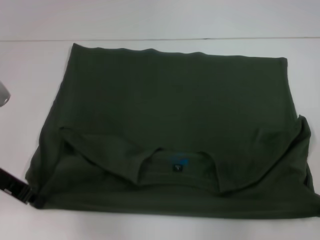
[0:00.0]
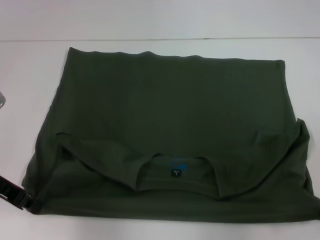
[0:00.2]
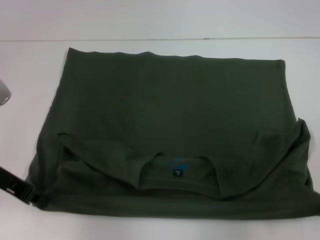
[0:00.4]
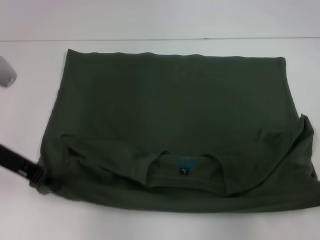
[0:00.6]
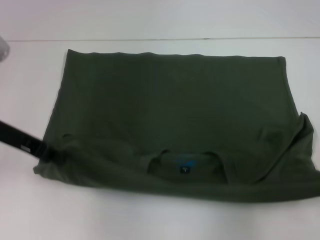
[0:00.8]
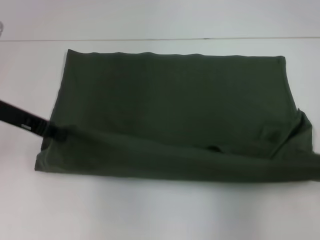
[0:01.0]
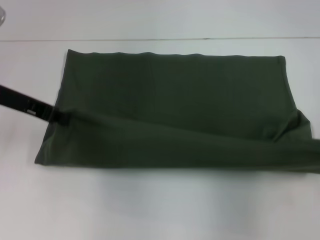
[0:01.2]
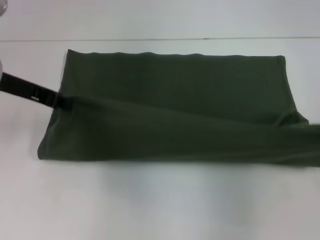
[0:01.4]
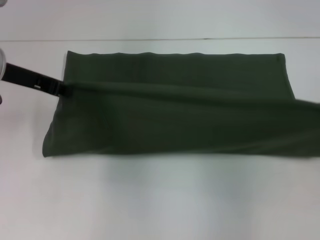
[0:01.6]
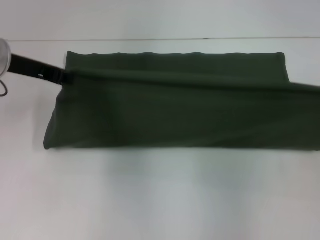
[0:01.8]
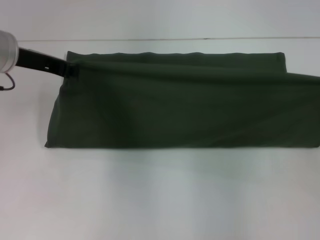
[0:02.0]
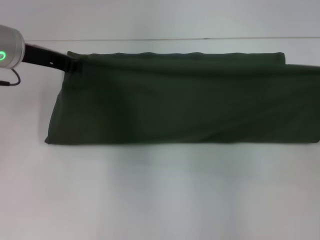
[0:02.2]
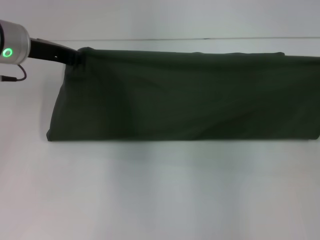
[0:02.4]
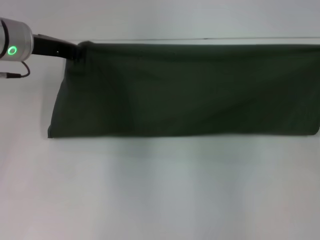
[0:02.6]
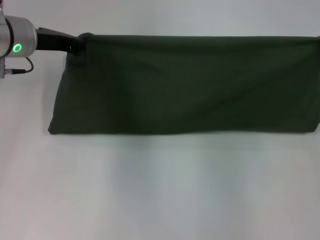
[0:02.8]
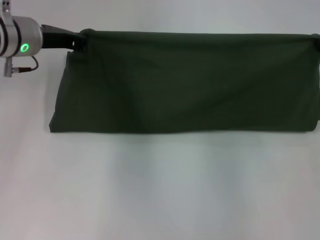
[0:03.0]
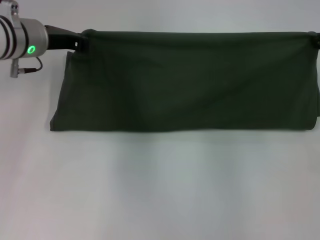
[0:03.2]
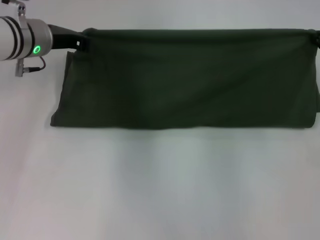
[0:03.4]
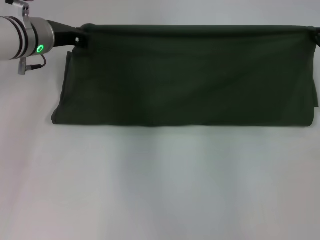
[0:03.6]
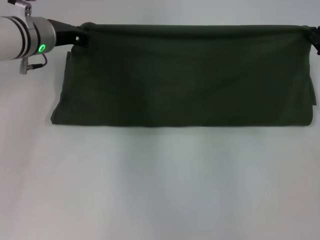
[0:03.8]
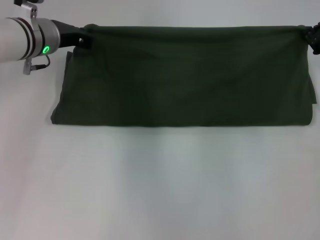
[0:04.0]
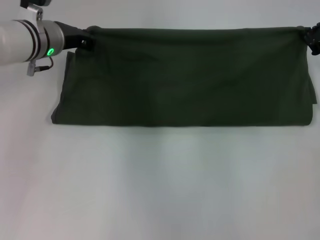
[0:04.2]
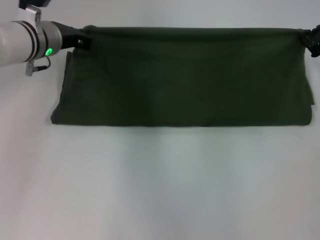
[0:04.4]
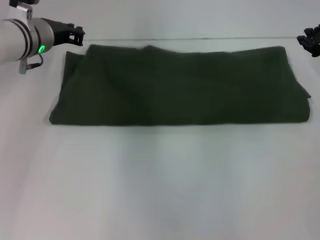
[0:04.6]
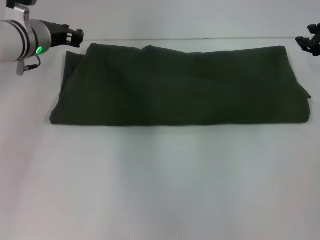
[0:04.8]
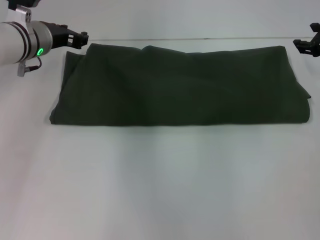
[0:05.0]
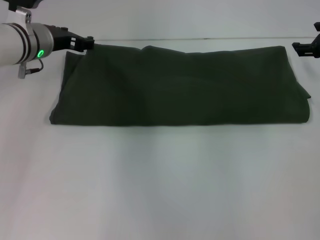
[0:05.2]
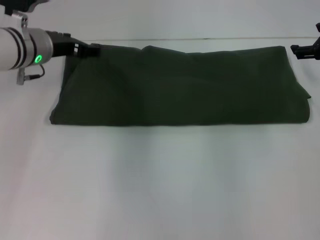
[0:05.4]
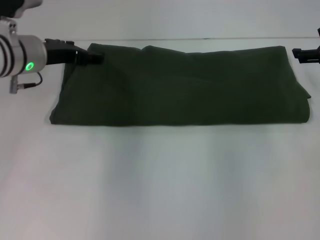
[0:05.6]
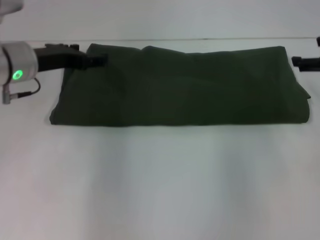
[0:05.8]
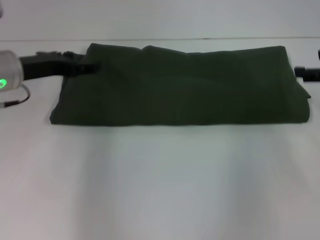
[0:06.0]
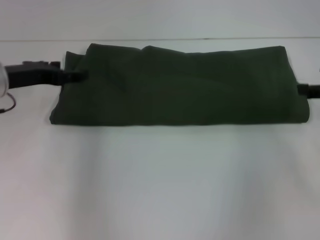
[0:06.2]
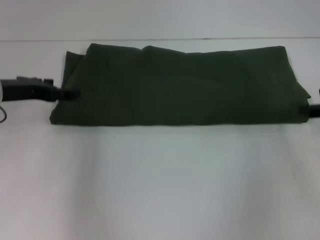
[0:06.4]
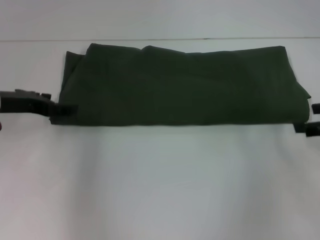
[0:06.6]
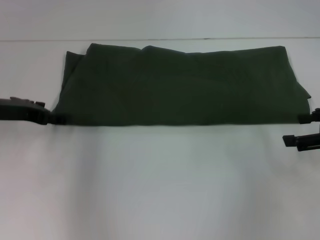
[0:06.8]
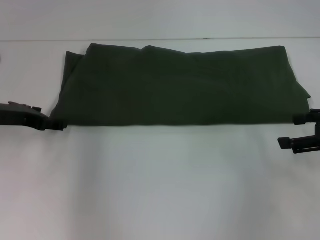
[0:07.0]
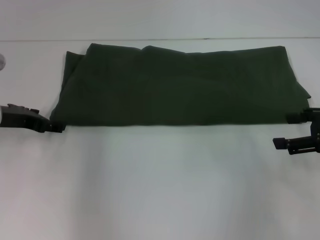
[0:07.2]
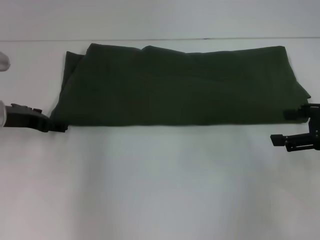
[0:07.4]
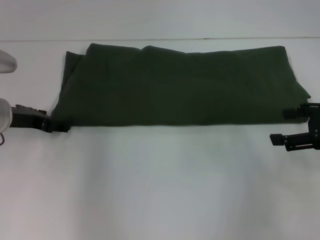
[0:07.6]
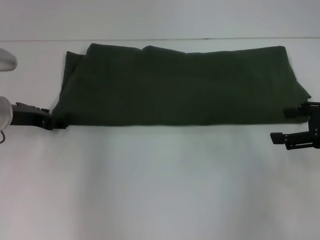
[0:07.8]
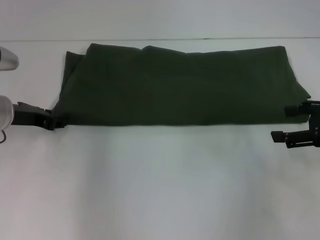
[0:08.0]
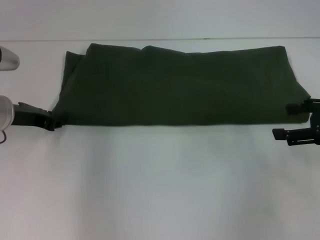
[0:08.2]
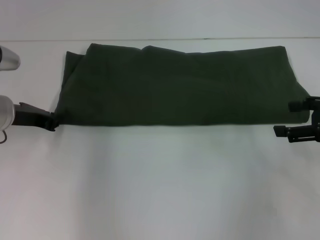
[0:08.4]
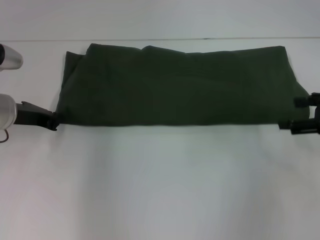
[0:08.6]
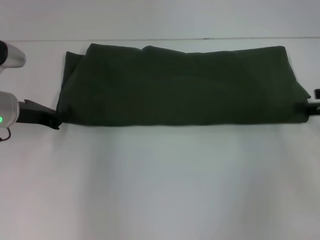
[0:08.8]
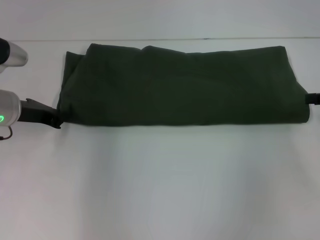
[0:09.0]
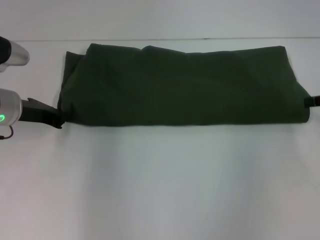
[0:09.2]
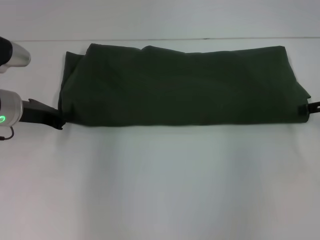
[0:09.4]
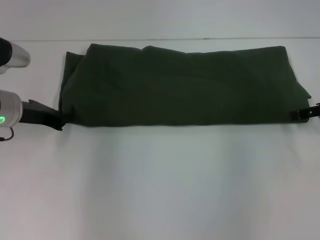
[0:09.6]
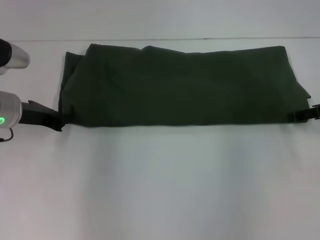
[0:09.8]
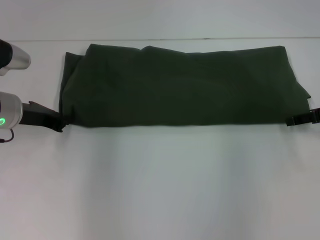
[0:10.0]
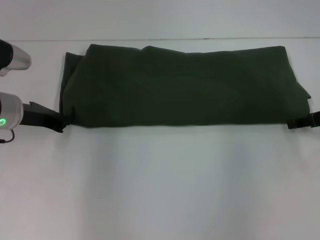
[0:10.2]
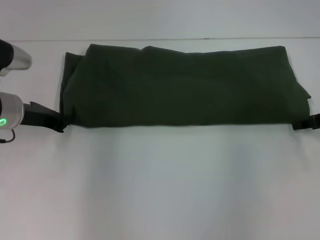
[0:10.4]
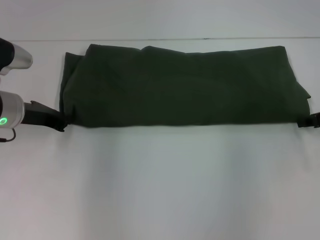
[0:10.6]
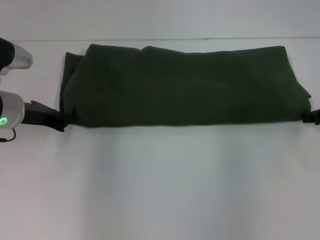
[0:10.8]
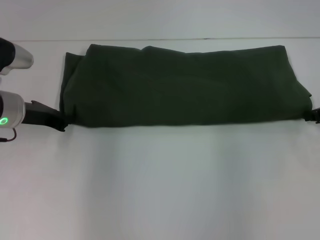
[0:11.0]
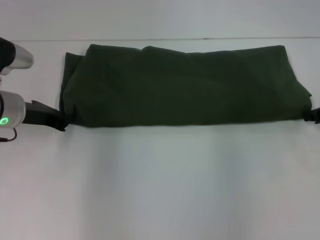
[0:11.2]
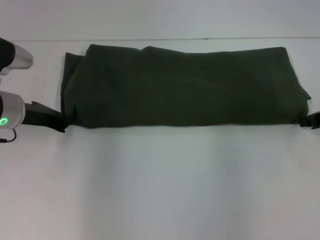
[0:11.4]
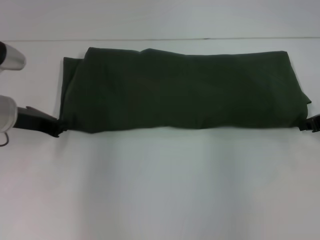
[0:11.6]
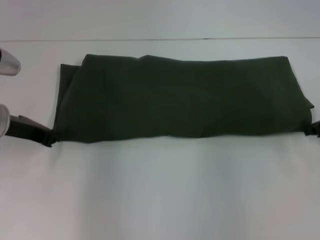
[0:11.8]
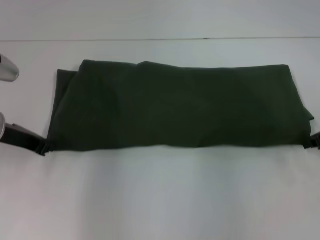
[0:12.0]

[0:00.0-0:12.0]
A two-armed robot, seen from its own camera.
Step, 0:00.6 to 0:05.0: Fold the clothes with your left hand.
Step, 0:00.6 to 0:05.0: Fold the clothes with your right hand.
0:00.0 to 0:01.6: The right gripper goes roughly 5 cm upward, while the left gripper moves forward and upward, approximately 10 cm.
0:01.6 to 0:03.0: The left gripper heads forward, covering approximately 5 cm; the right gripper heads forward, covering roughly 10 cm.
0:03.0 to 0:04.4: The right gripper shifts by about 5 cm.
0:04.4 to 0:06.0: The right gripper is displaced backward by roughly 10 cm, and opens its fingers, while the left gripper goes some 10 cm backward and to the left, and opens.
0:06.0 to 0:07.6: The right gripper travels backward by some 5 cm. The left gripper travels downward by about 5 cm.
0:07.6 to 0:09.0: The right gripper shifts by approximately 5 cm. The left gripper closes.
0:09.0 to 0:10.4: The right gripper shifts by roughly 5 cm, and closes.
0:10.4 to 0:12.0: The right gripper closes up.

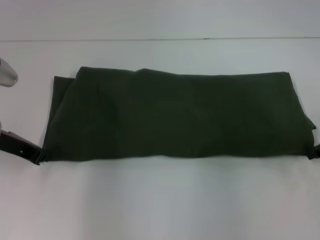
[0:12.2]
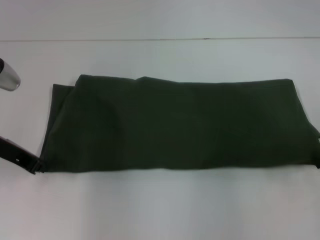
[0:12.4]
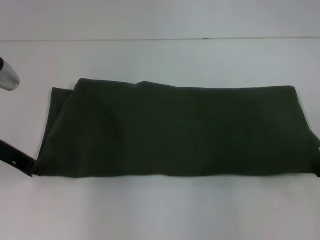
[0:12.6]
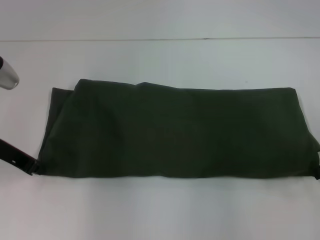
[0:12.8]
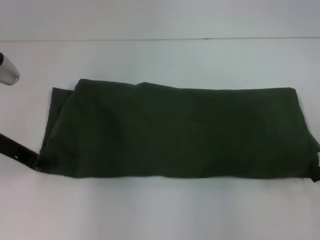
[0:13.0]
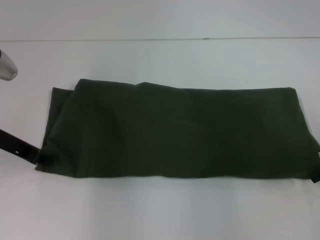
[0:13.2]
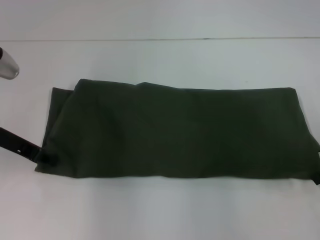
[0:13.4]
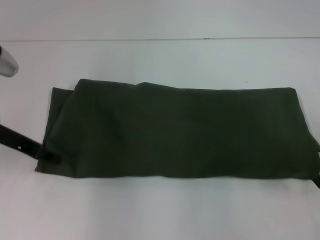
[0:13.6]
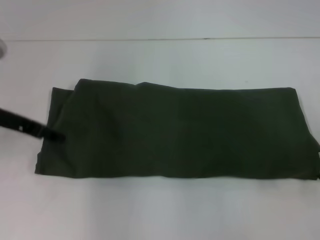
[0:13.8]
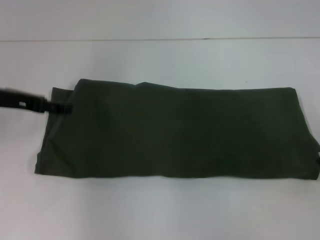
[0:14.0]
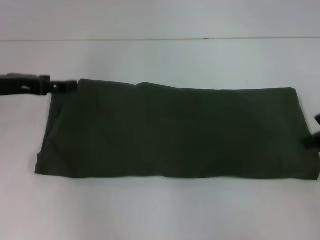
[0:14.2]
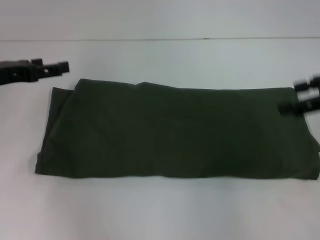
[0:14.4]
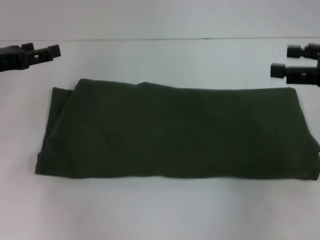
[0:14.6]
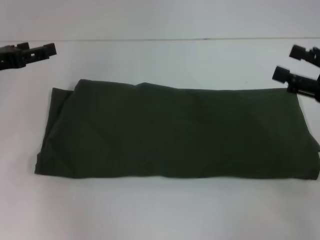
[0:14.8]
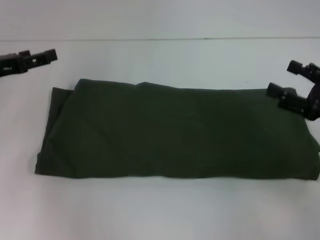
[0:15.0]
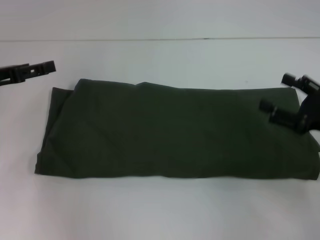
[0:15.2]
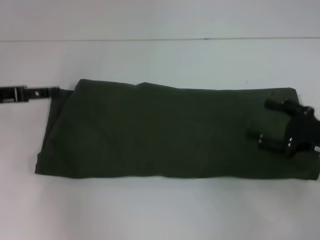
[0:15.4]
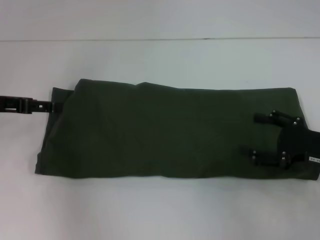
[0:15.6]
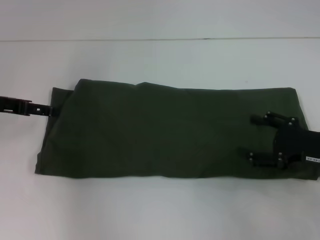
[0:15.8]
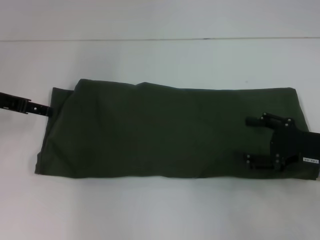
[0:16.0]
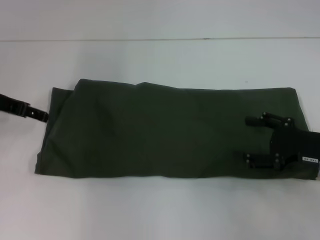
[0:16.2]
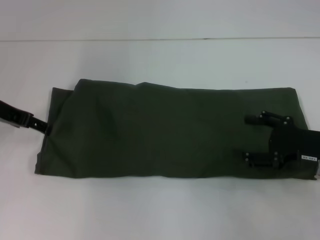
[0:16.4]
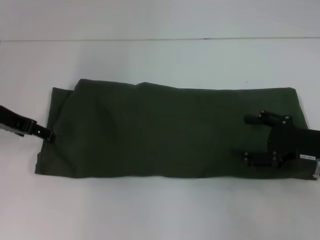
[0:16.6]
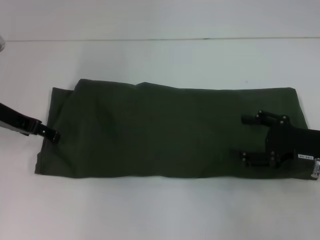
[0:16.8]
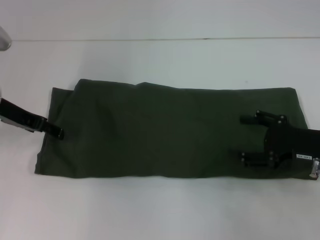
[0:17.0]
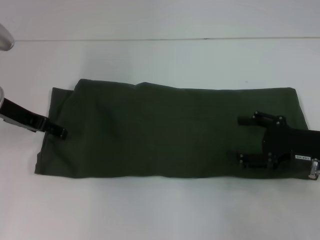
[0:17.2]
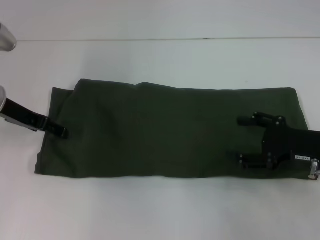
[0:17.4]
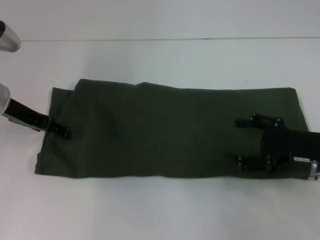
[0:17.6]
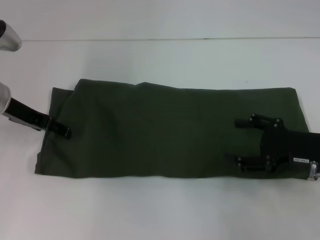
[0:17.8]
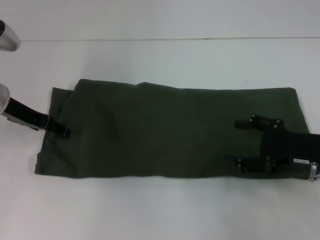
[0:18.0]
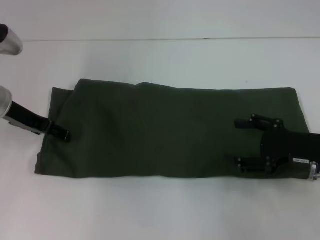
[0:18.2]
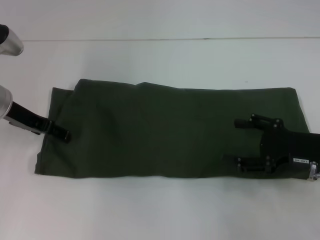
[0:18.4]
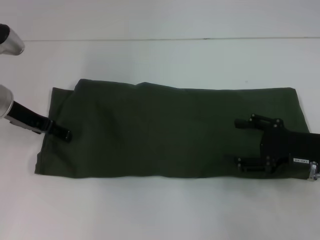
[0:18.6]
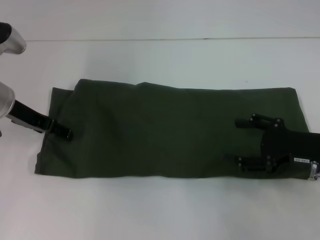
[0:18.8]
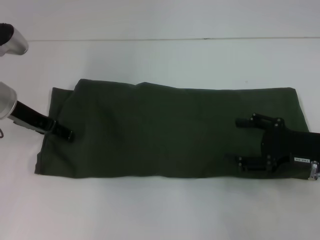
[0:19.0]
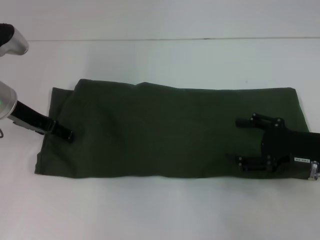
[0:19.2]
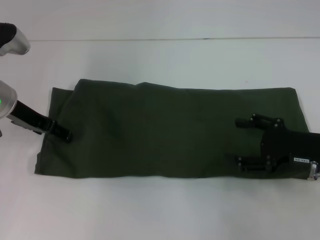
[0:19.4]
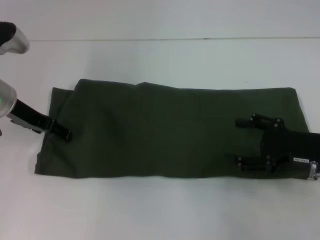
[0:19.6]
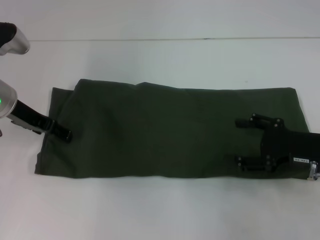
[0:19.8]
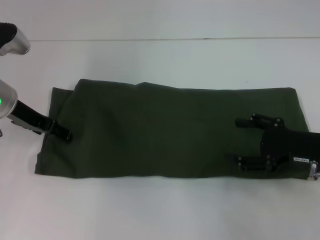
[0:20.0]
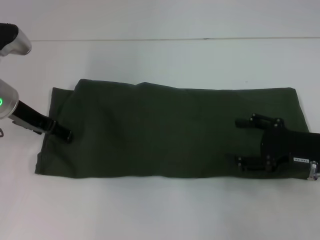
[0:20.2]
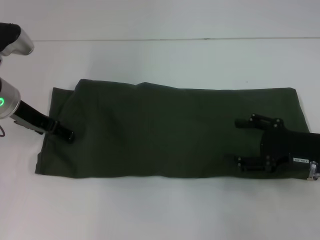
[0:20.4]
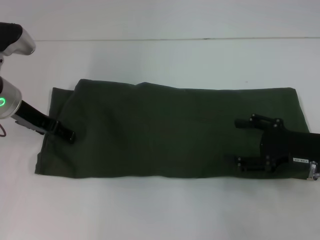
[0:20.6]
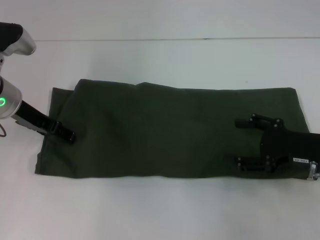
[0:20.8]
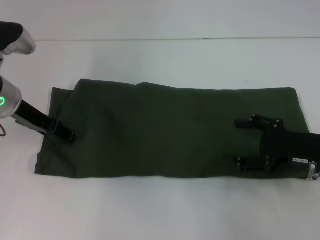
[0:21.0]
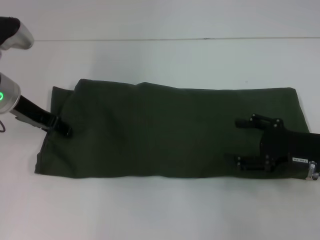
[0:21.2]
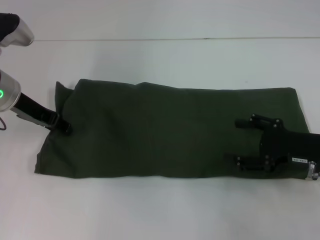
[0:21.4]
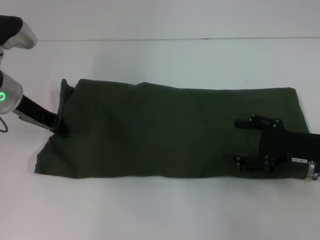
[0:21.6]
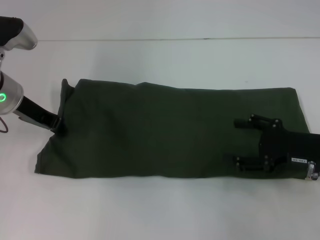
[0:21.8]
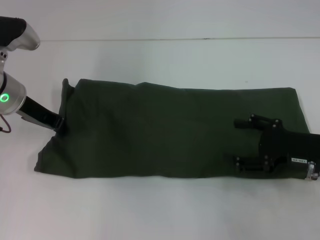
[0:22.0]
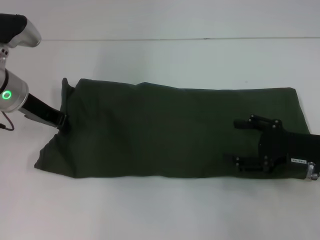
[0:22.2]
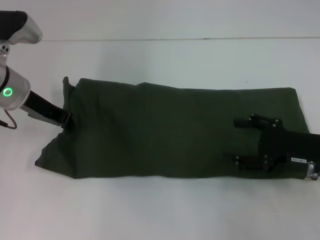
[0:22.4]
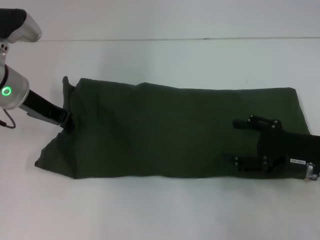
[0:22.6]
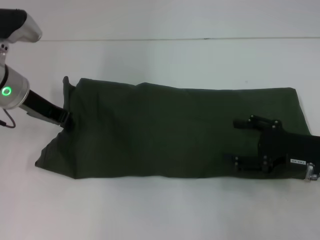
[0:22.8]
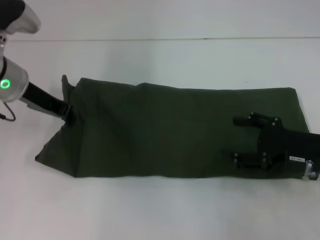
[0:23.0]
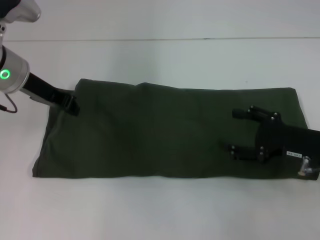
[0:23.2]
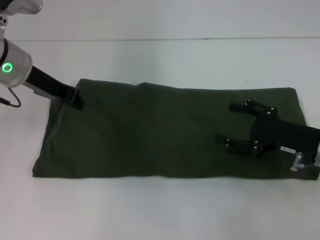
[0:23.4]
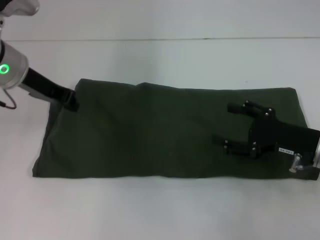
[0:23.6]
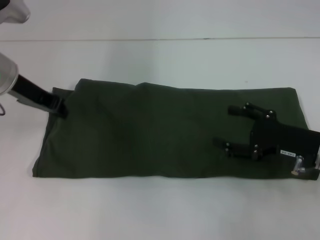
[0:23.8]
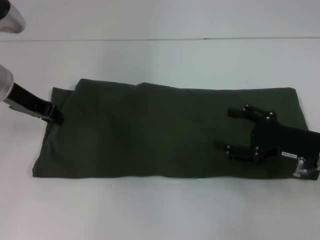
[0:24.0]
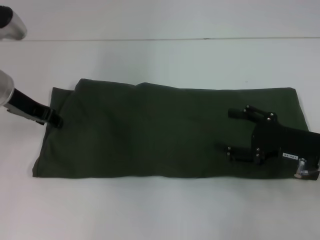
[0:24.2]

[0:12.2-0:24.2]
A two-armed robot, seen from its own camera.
Step, 0:12.2 to 0:14.2: Pull the clothes with your left hand.
Step, 0:12.2 to 0:14.2: Pull the clothes with your right hand.
0:12.2 to 0:13.8: The left gripper opens. The right gripper opens its fingers.
0:13.8 to 0:15.2: The left gripper travels to the left by about 5 cm, and opens up; the right gripper is displaced downward by about 10 cm, and opens.
0:15.2 to 0:16.6: The left gripper ends up some 5 cm from where it was.
0:16.6 to 0:18.2: The grippers move only a little.
0:18.2 to 0:19.8: Neither gripper changes place.
0:19.8 to 0:21.2: Both grippers stay about where they are.
0:21.2 to 0:22.6: The left gripper closes.
0:22.6 to 0:24.2: The left gripper opens its fingers.
